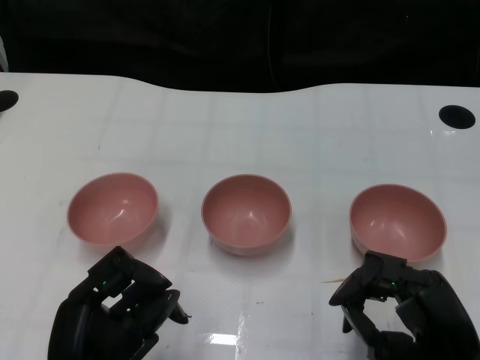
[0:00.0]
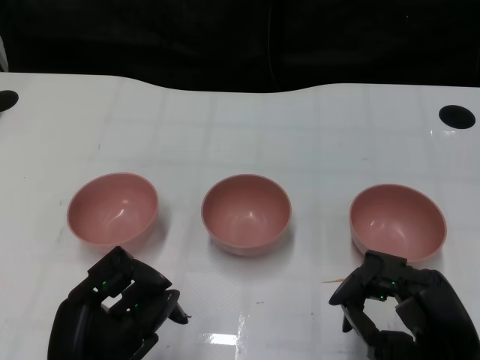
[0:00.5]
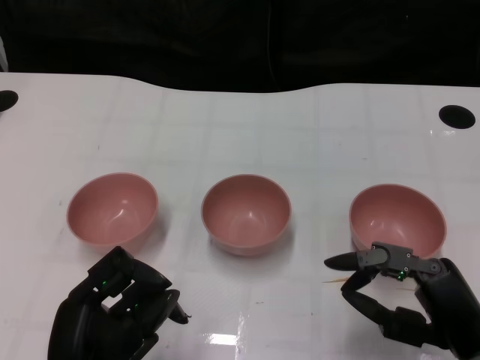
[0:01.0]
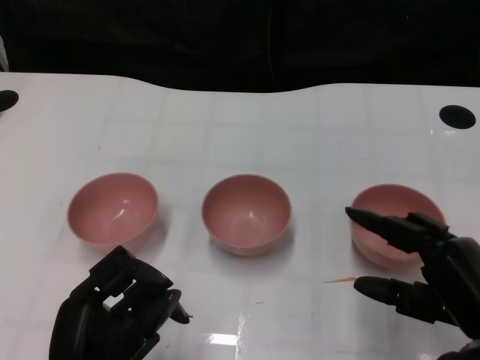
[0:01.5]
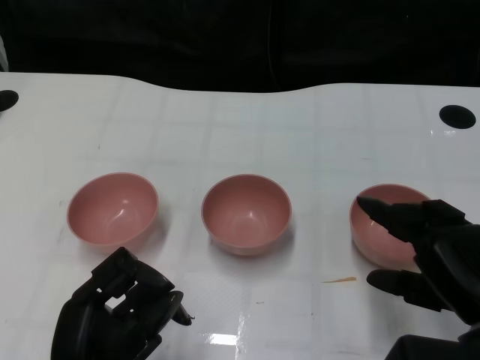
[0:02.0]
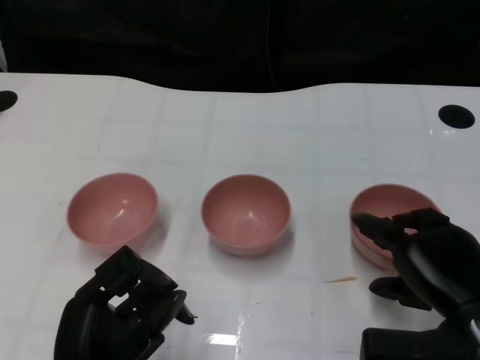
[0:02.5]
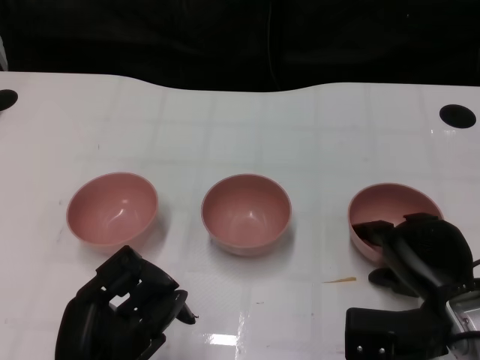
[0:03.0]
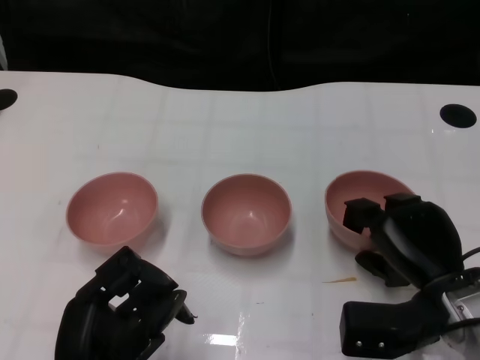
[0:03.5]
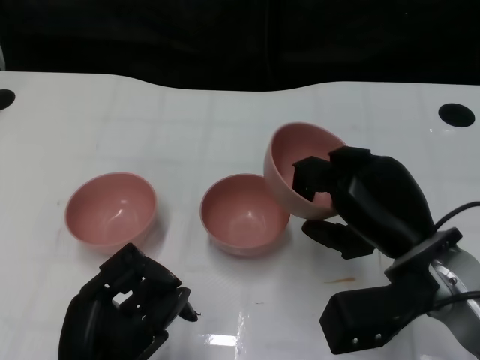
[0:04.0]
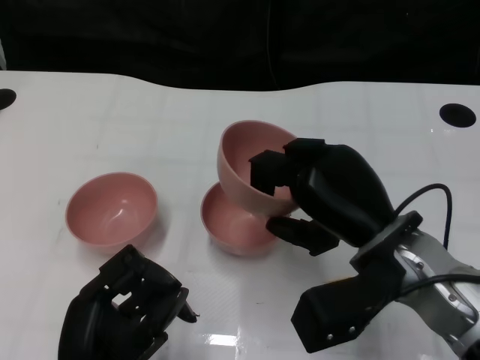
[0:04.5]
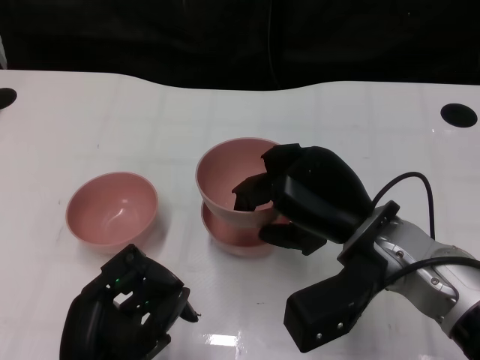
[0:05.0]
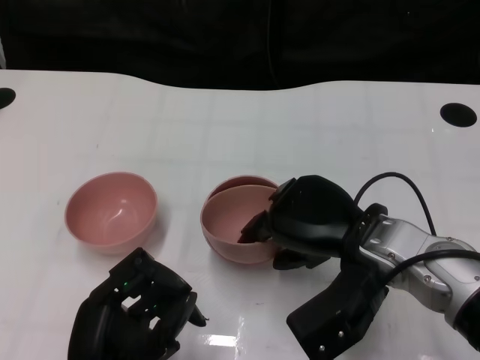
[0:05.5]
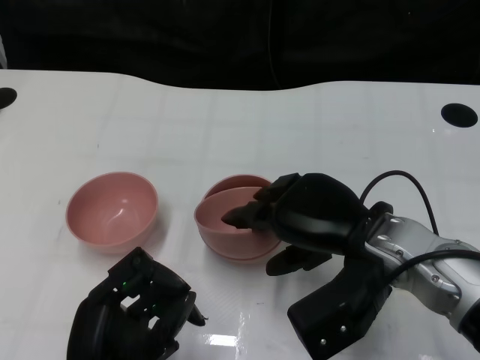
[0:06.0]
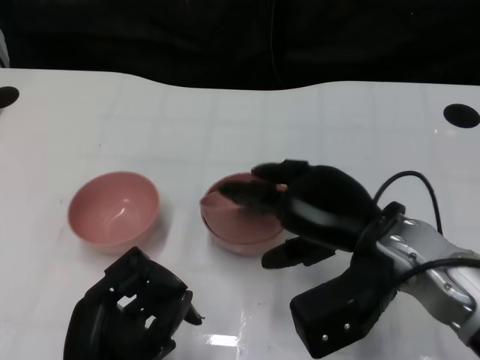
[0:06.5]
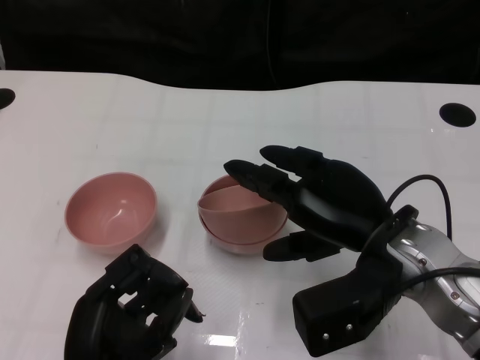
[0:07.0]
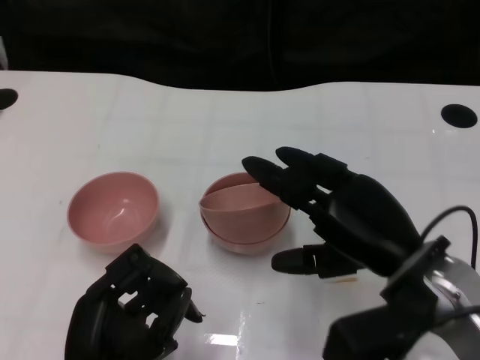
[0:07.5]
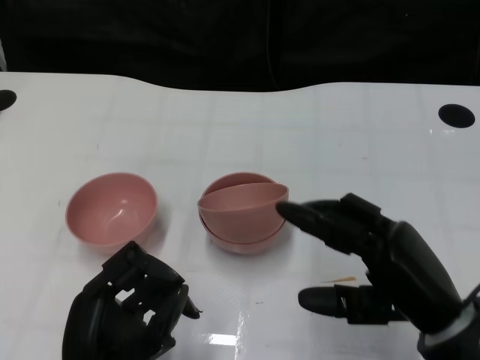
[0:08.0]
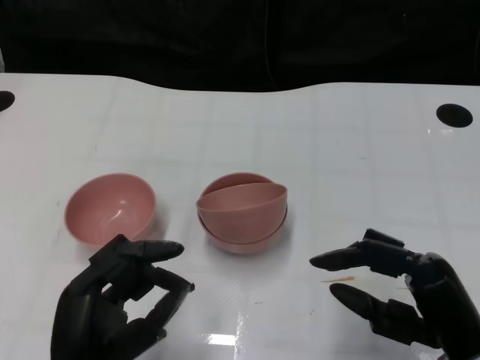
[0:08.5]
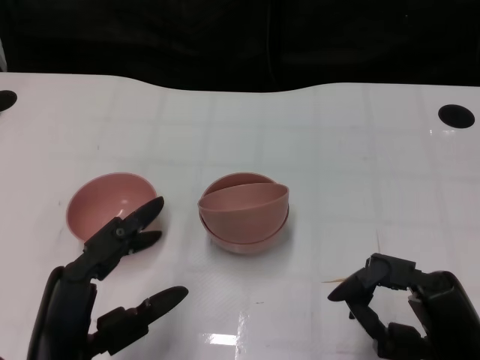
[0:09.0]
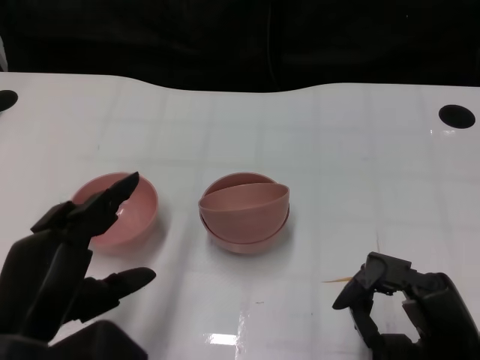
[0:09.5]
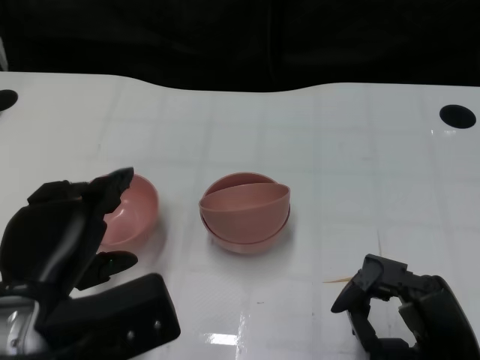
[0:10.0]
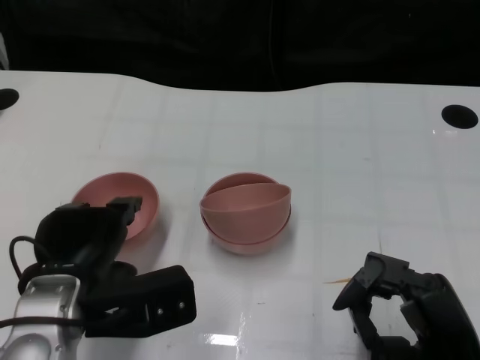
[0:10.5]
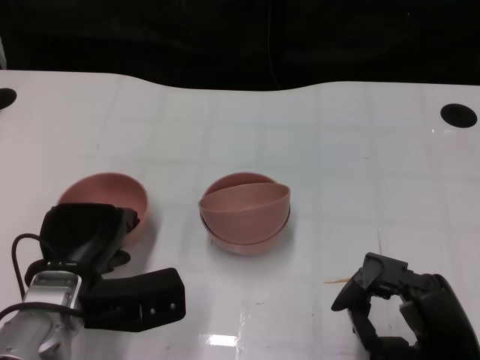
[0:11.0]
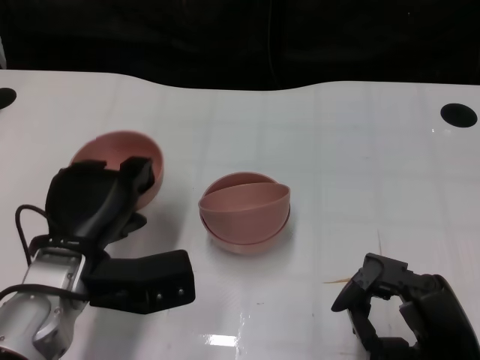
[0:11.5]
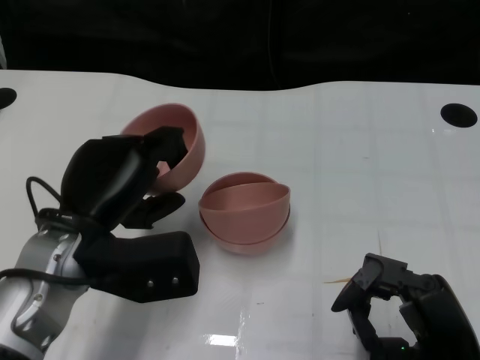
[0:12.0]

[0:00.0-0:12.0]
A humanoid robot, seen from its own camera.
Task of the whole recording: Pick up the bowl on one side of the table and place it on top of the middle bowl, then pick up the bowl on the other side of the table and place it on top of the middle bowls.
Step, 0:01.0 to 0:03.0: Grasp the bowl on the right with the right gripper.
Step, 0:04.0 to 0:07.5: Place the bowl on the right onto the bowl in the middle with right gripper.
Step, 0:08.0 to 0:11.0: Grasp the bowl on the left with the left gripper.
0:02.0 to 0:04.0: The right hand moves to the left and forward, roughly 10 cm.
0:06.0 to 0:08.0: The right hand is displaced backward and to the right by roughly 10 cm.
0:08.0 to 0:10.0: The left hand travels upward and forward by roughly 10 cm, while the right hand shifts by roughly 5 cm.
0:10.0 to 0:12.0: The left hand shifts approximately 5 cm forward.

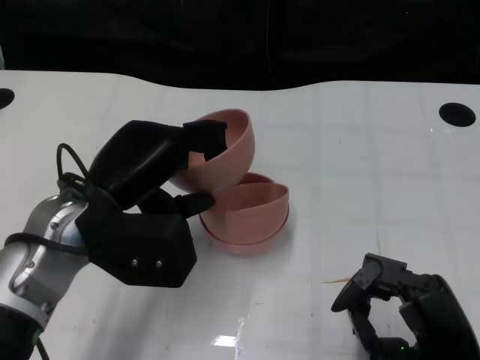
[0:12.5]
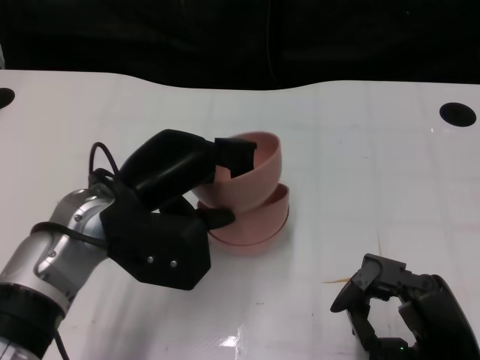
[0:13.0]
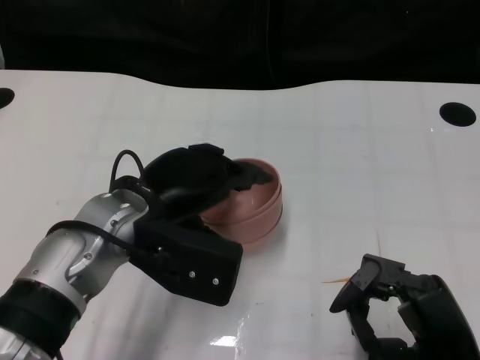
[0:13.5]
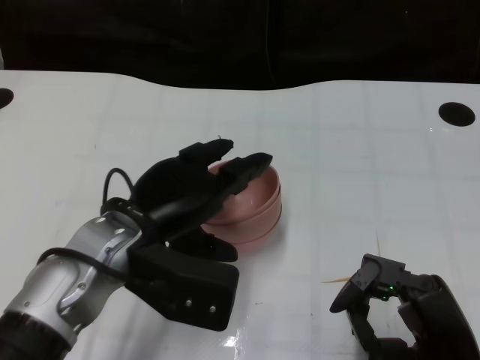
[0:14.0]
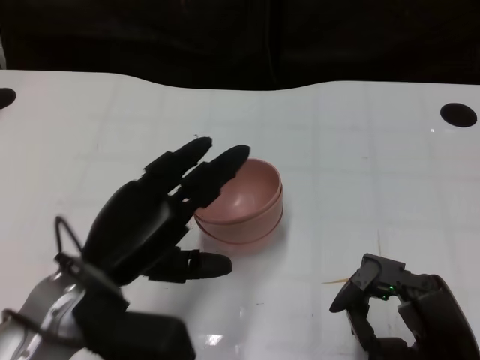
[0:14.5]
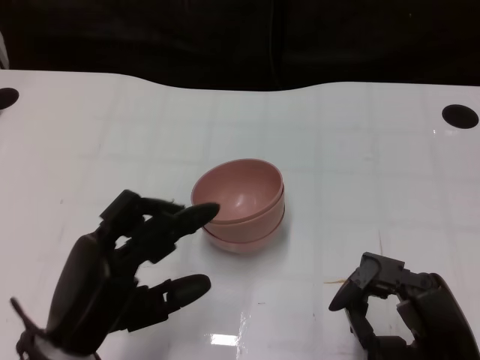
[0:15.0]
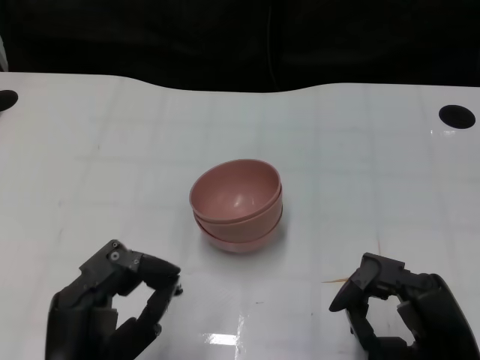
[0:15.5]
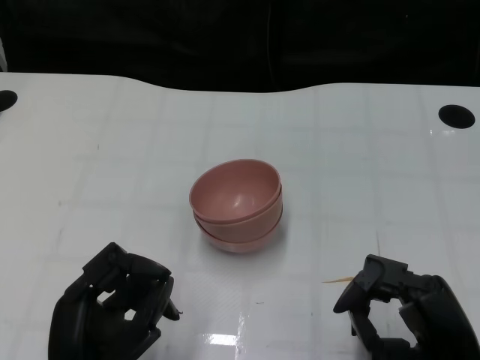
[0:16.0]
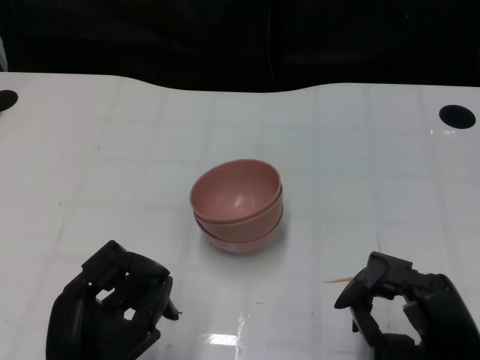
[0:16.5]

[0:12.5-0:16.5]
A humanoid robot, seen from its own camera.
Task of the whole recording: Pick up the bowl on one side of the table and place it on top of the middle bowl, then pick up the bowl on the other side of the table and place it on top of the middle bowls.
Step, 0:12.5 to 0:14.5: Place the bowl on the left onto the bowl in the middle with left gripper.
0:12.5 to 0:14.5: The left hand moves approximately 5 cm.
0:14.5 to 0:16.5: The left hand moves backward and downward, roughly 10 cm.

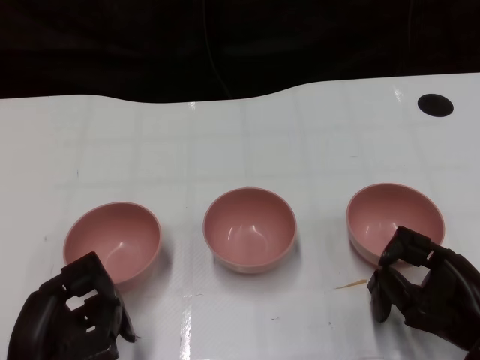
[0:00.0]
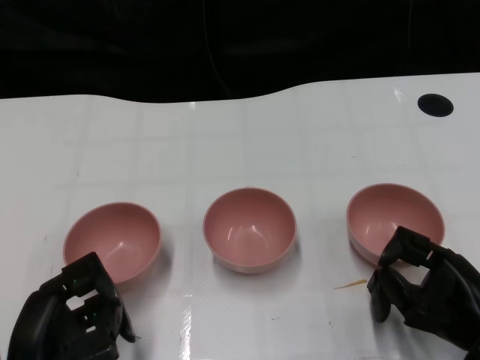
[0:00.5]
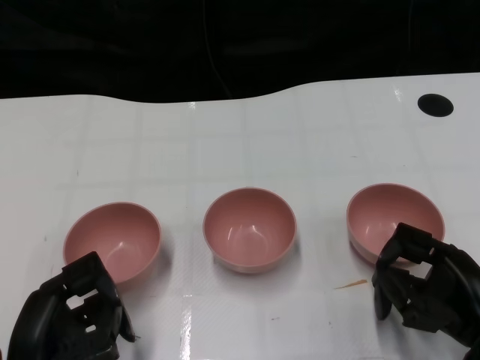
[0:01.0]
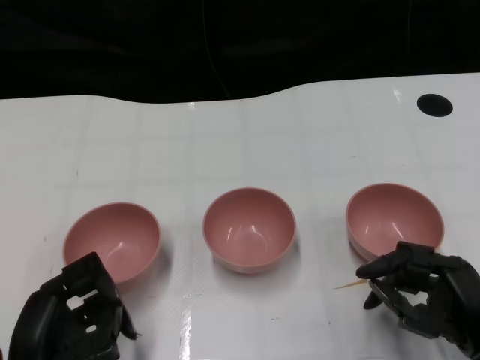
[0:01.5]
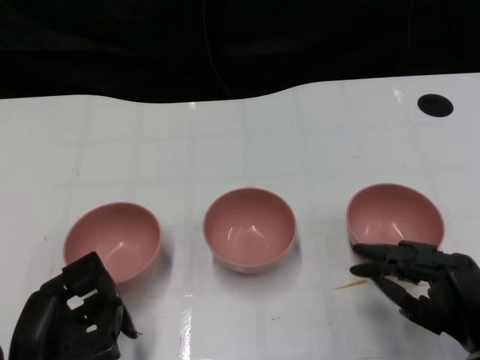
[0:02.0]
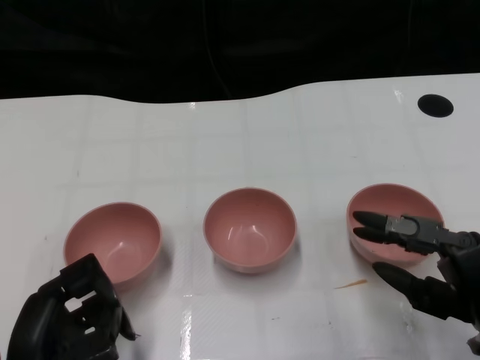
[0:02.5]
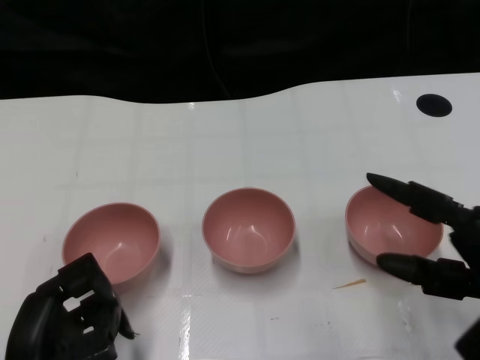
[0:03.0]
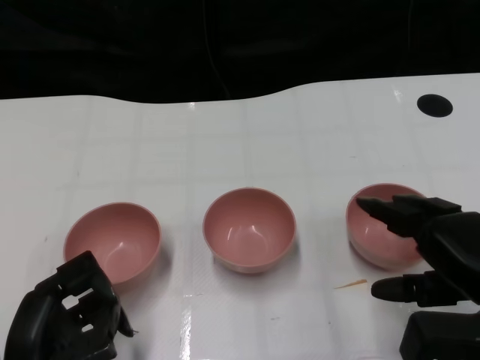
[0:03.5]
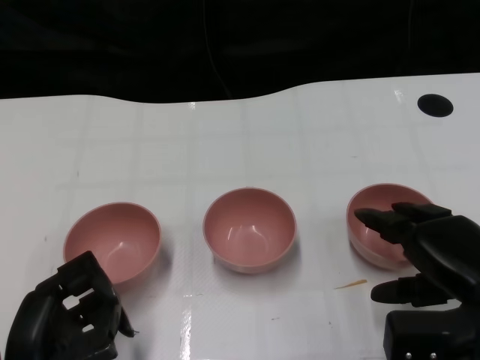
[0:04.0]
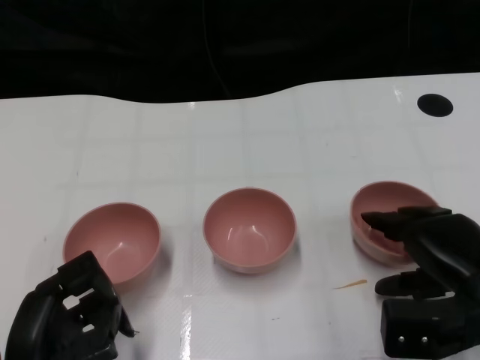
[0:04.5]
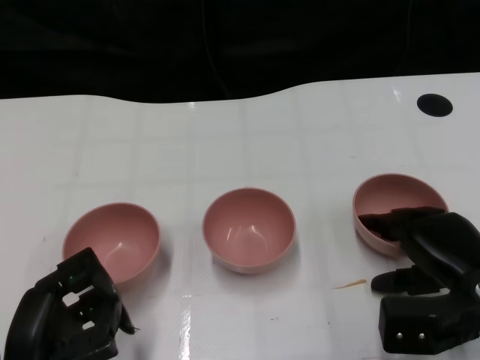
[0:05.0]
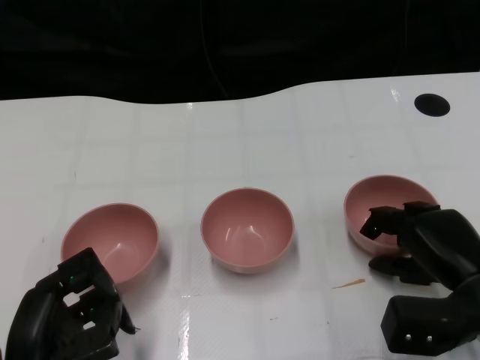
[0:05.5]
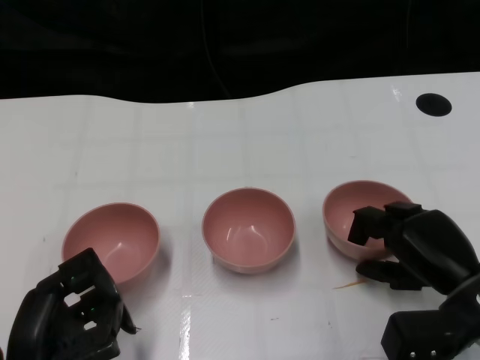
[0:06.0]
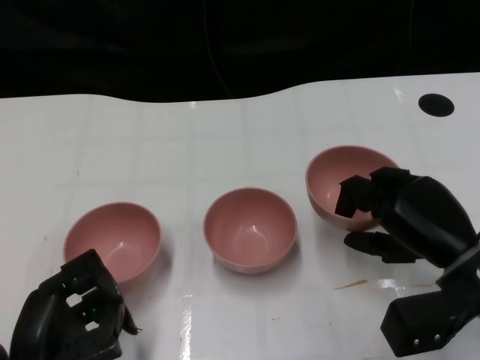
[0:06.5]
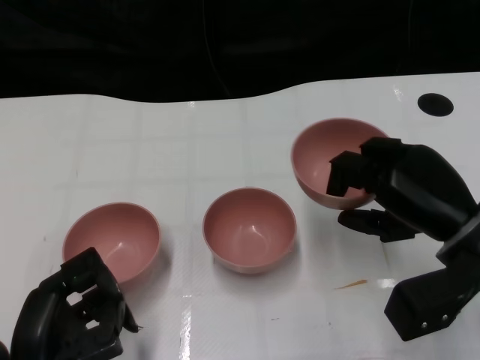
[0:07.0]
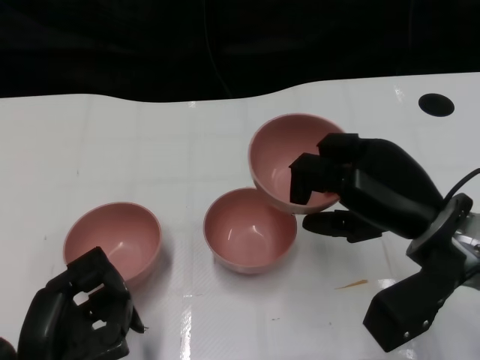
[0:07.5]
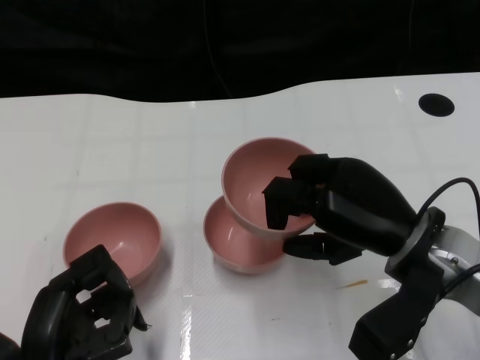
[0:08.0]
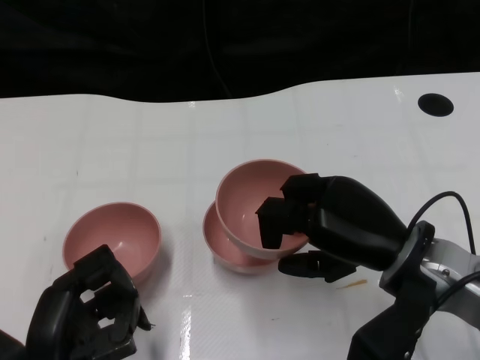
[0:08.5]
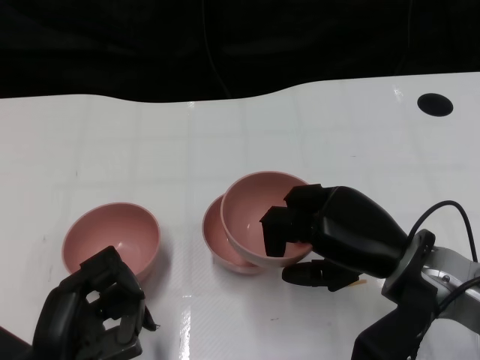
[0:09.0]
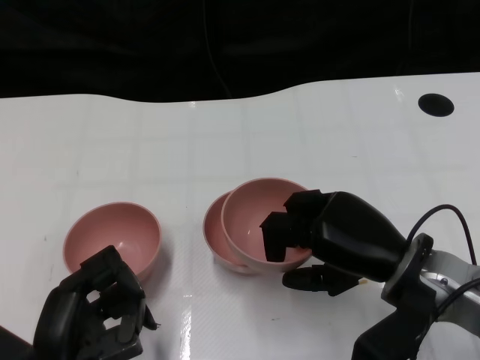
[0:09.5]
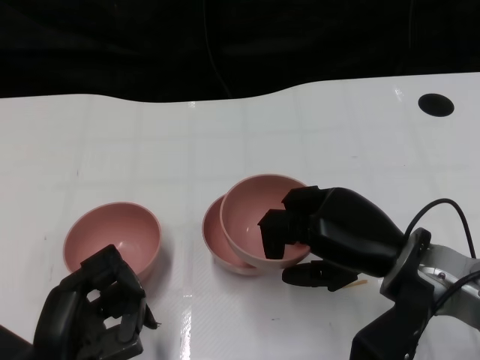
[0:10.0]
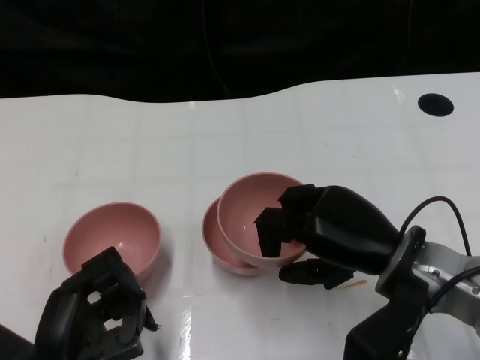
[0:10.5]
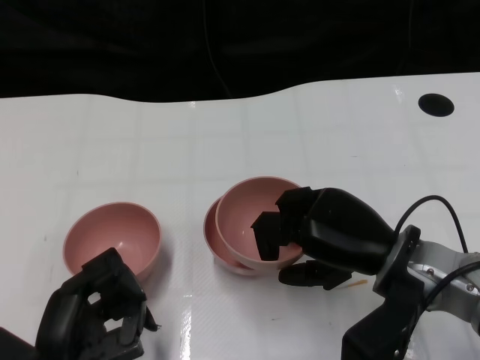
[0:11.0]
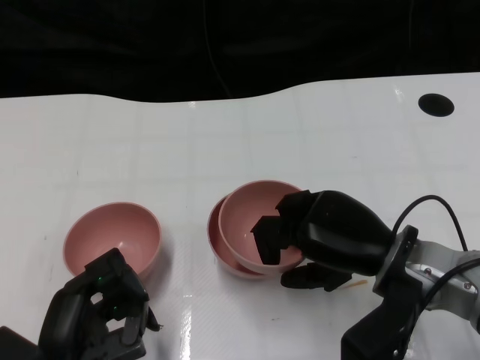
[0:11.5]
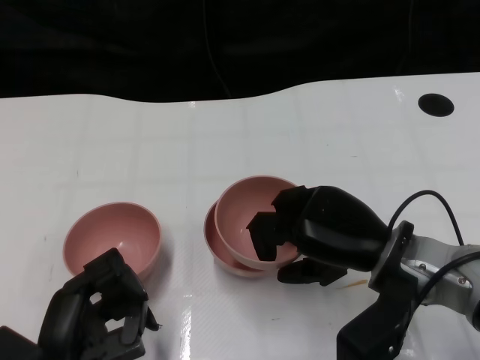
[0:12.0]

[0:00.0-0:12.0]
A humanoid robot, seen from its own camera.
Task of the whole recording: Pick up the bowl on one side of the table and place it on top of the middle bowl, then pick up the bowl on the other side of the table and place it on top of the middle bowls.
Step, 0:01.0 to 0:06.0: Grasp the bowl on the right with the right gripper.
0:02.0 to 0:04.0: The right hand shifts approximately 5 cm upward.
0:04.0 to 0:06.0: The right hand moves some 5 cm.
0:06.0 to 0:08.0: The right hand shifts approximately 10 cm upward and to the left.
0:08.0 to 0:12.0: The hands make only small movements.
